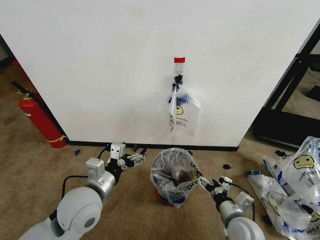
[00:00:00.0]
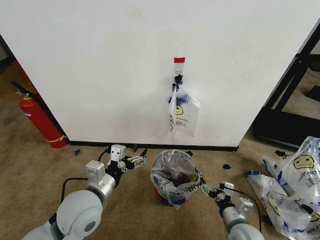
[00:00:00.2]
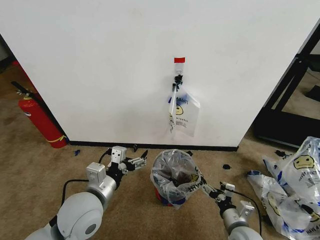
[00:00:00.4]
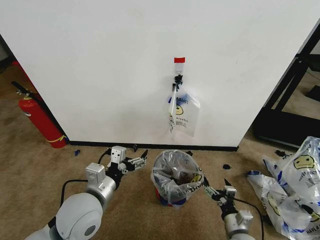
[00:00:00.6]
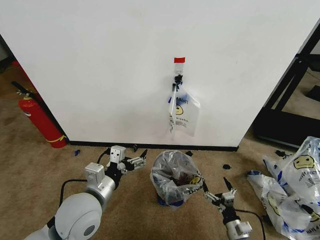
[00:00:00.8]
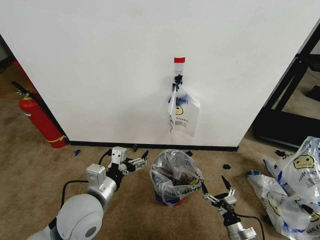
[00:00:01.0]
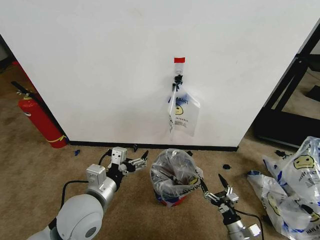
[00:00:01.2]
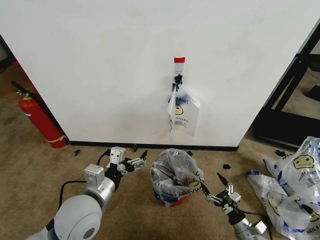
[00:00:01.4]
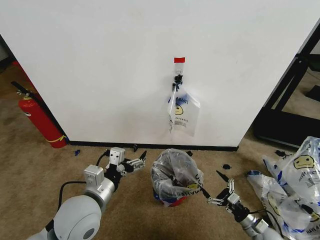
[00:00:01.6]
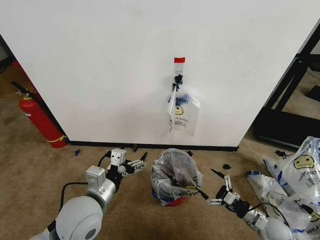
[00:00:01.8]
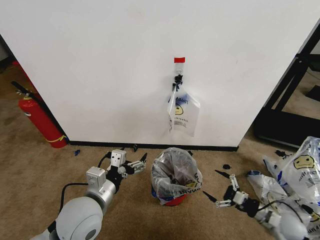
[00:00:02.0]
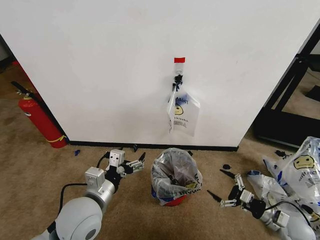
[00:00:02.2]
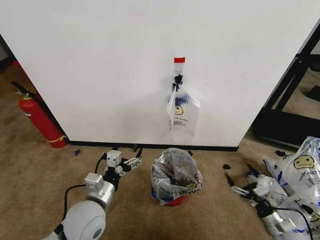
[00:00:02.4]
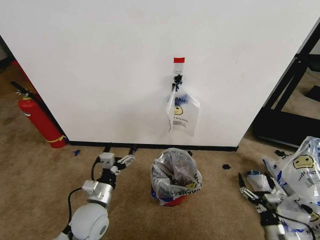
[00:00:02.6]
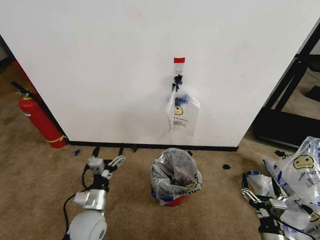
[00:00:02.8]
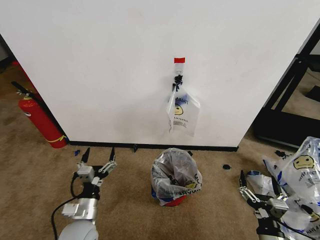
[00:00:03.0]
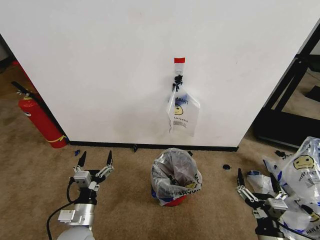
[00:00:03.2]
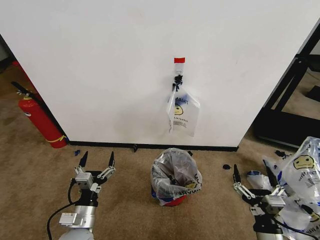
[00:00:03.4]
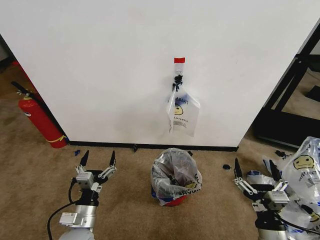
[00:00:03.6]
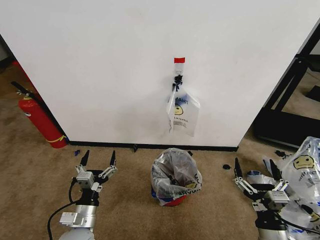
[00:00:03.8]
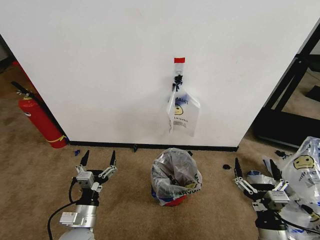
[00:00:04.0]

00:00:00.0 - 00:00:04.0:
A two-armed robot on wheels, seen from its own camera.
Task of the whole recording: Pick up the garbage bag from the wall and place it over the trash bin.
00:00:00.0 - 00:00:01.4: The right gripper moves downward and to the right, some 20 cm.
00:00:01.4 - 00:00:02.6: The right gripper is displaced upward by approximately 5 cm; the left gripper is displaced downward by approximately 10 cm.
00:00:02.6 - 00:00:04.0: The right gripper moves upward and to the left, about 15 cm; the left gripper goes about 5 cm backward.
